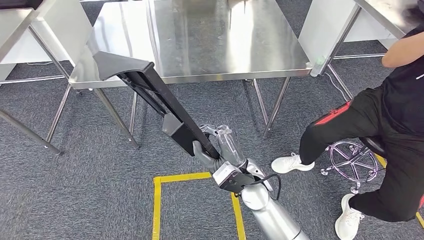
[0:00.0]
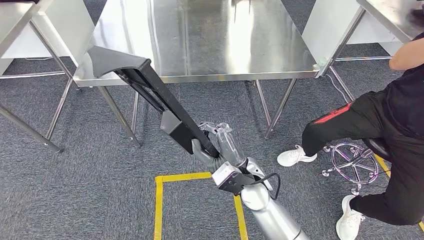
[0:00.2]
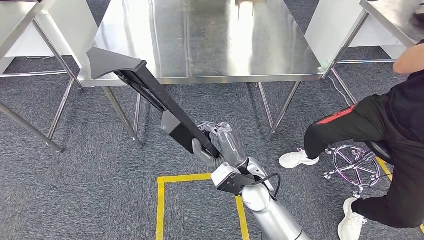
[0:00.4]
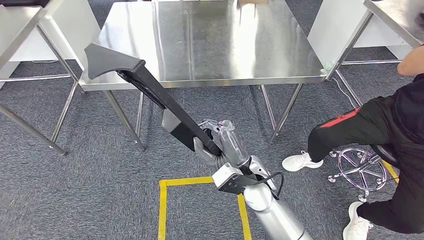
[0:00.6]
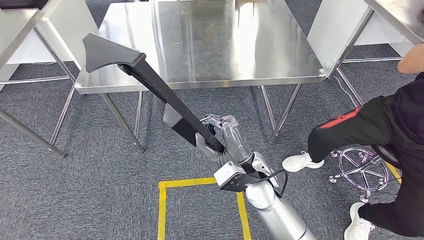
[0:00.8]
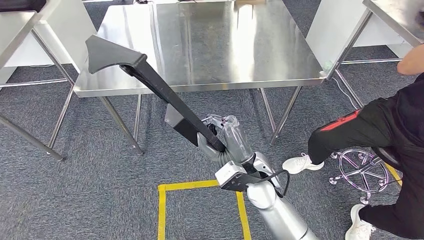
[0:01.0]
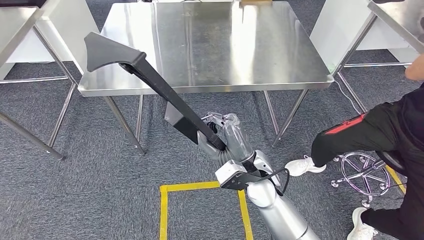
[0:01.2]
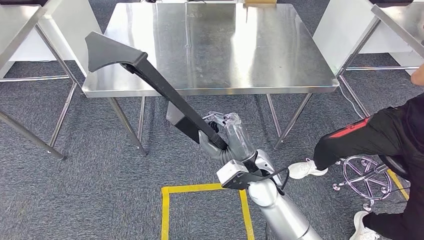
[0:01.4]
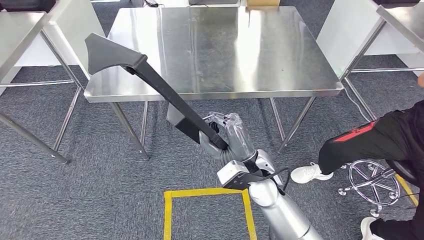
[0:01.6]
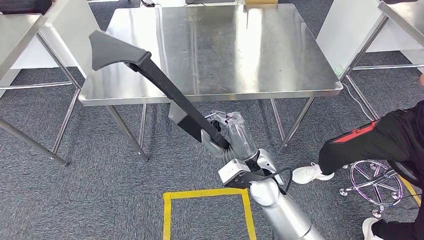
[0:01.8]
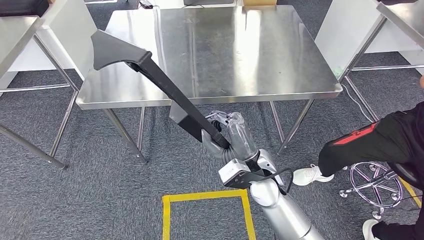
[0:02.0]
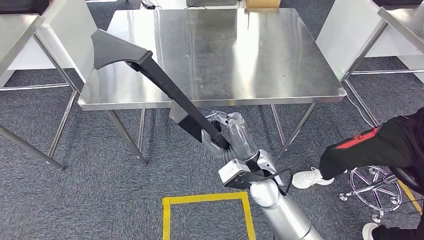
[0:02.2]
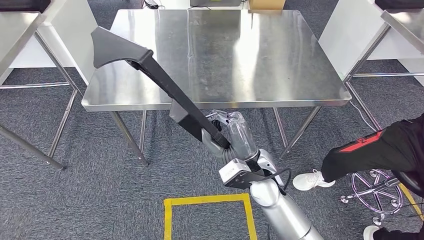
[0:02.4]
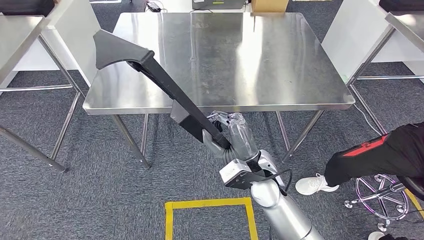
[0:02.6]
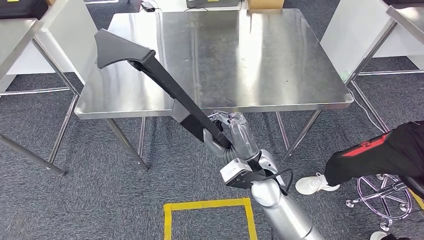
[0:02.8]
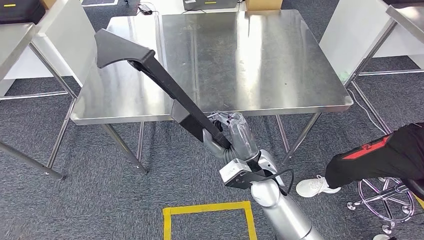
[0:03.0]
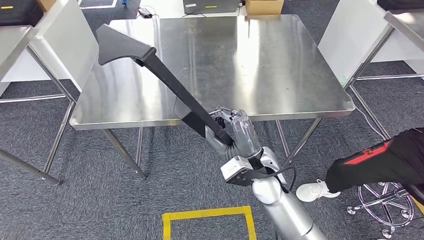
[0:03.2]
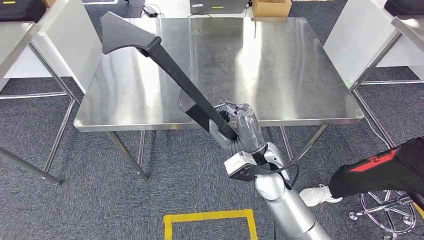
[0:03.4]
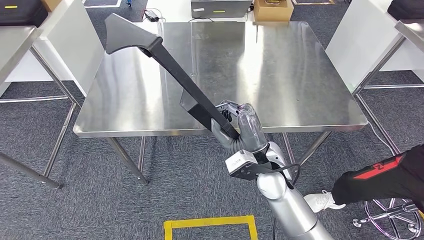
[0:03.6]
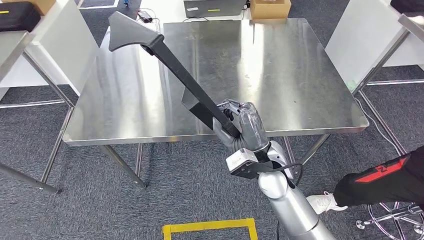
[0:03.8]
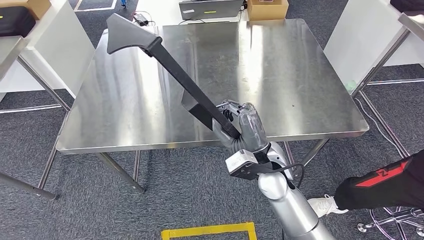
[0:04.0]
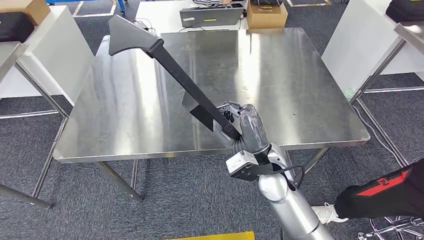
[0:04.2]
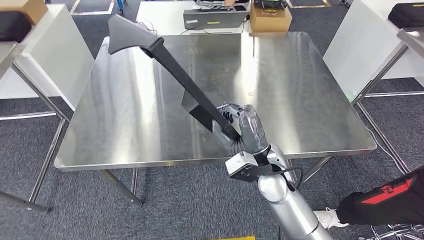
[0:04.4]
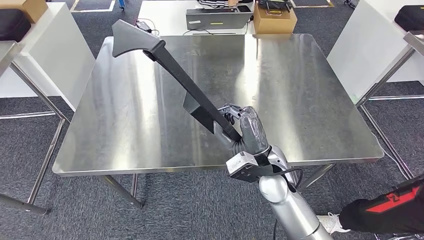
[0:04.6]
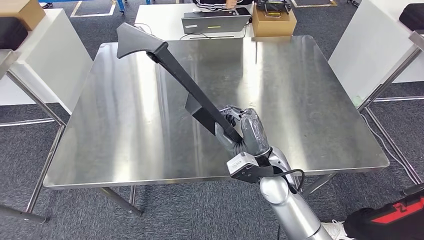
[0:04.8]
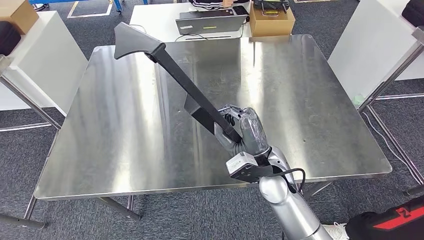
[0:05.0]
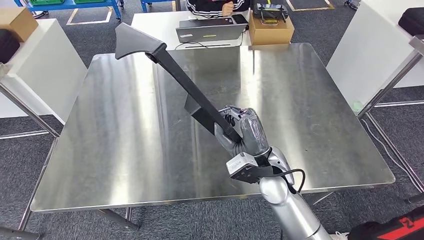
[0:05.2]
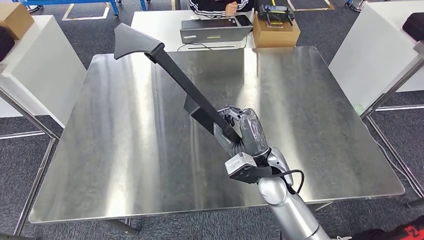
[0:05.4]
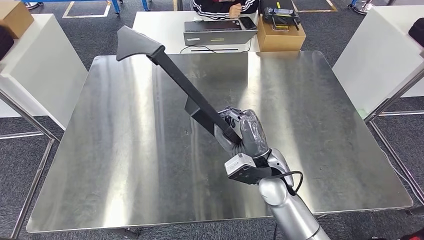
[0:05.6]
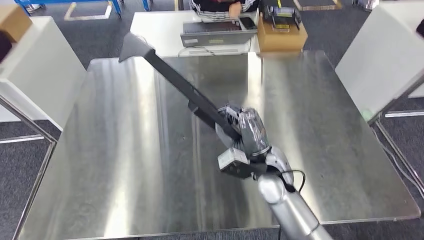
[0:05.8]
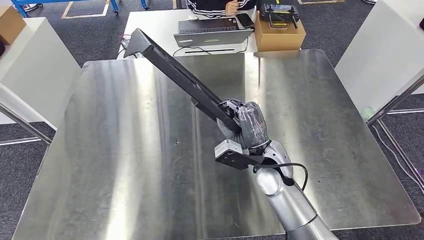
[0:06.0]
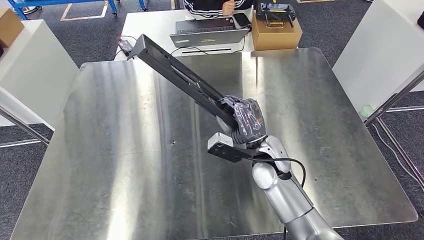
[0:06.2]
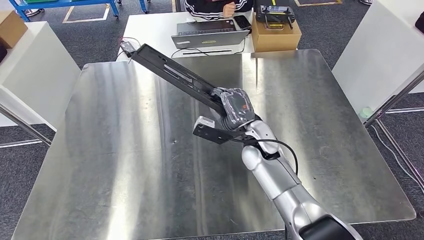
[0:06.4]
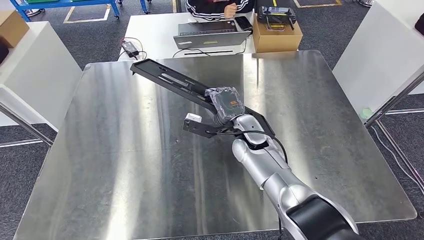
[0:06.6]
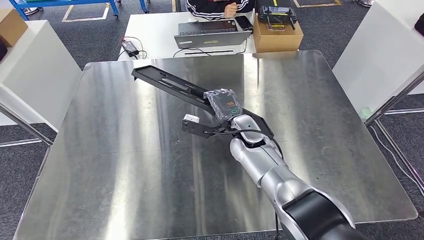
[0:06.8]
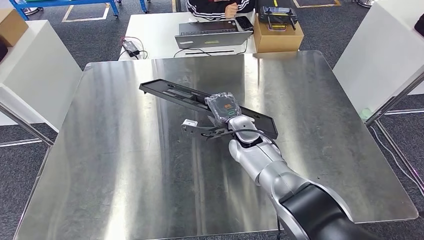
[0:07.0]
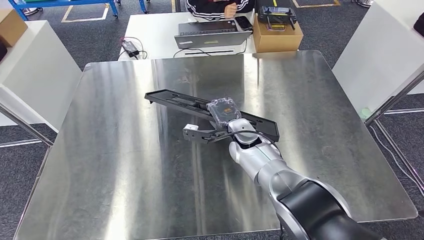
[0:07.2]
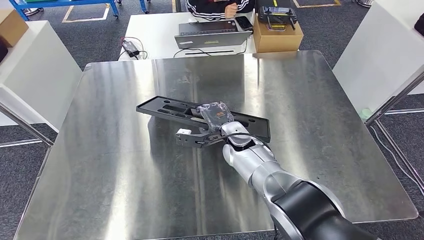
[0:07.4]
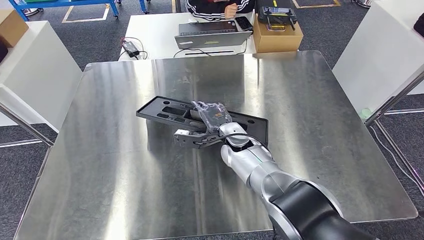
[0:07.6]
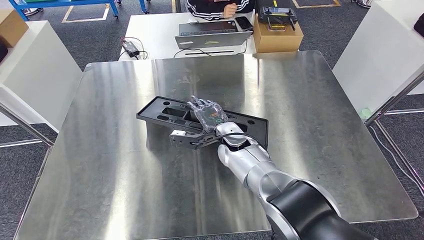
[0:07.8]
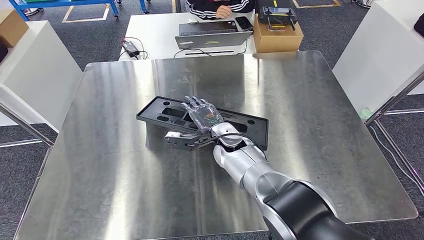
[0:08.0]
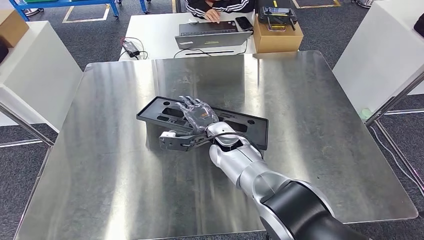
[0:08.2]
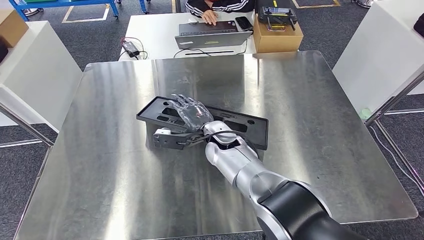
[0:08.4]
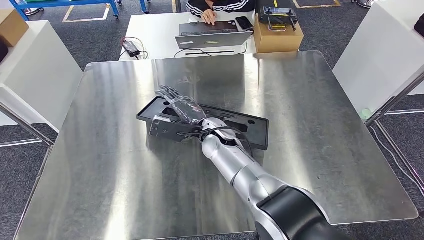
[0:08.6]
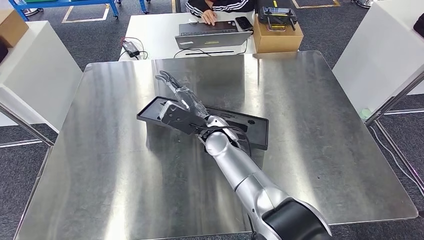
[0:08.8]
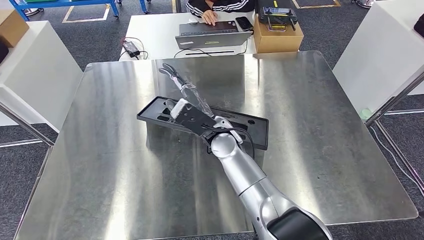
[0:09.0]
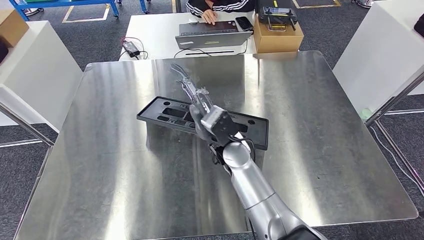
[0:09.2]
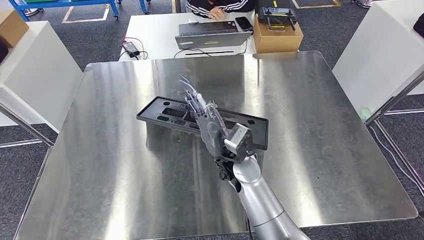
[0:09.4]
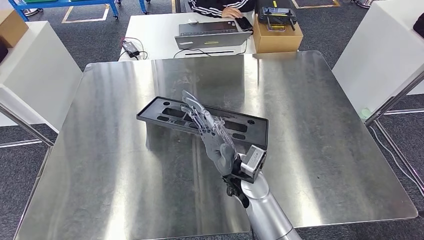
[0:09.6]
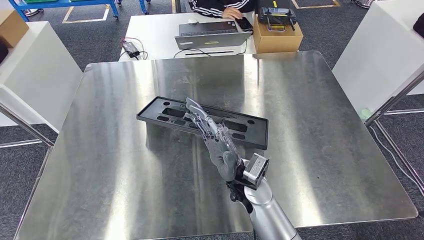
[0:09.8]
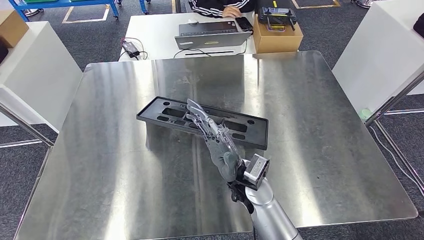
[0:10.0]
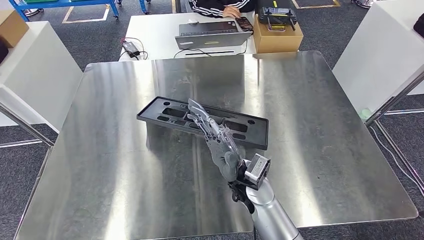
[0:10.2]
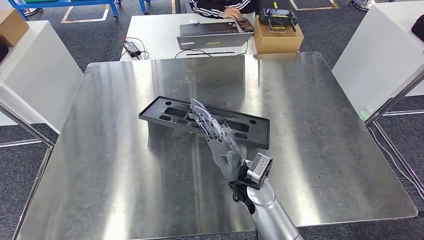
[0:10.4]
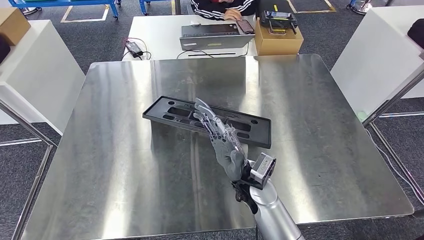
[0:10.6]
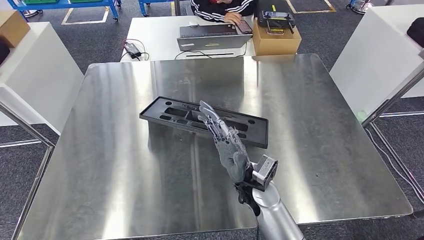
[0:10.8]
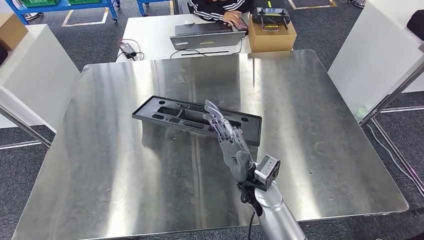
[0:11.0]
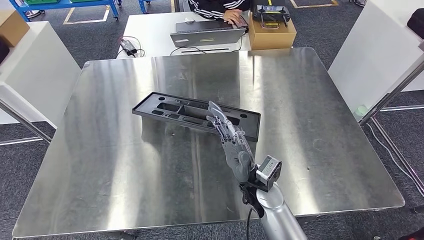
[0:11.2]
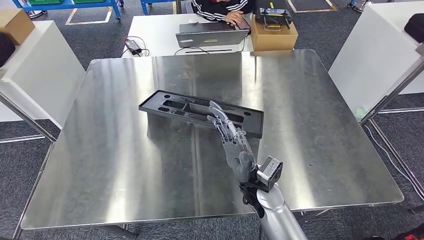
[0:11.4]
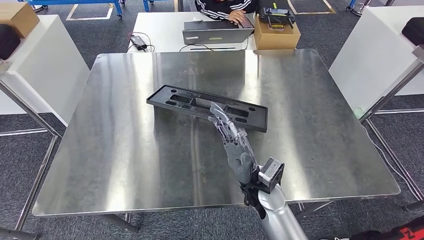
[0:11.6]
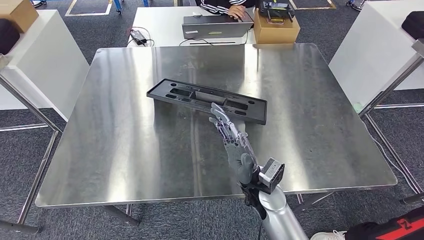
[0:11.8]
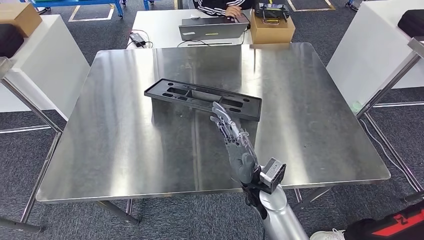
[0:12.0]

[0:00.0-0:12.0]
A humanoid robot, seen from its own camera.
0:07.6 to 0:09.0: The right hand moves upward, some 5 cm.
0:09.0 to 0:10.4: The right hand moves backward, about 10 cm.

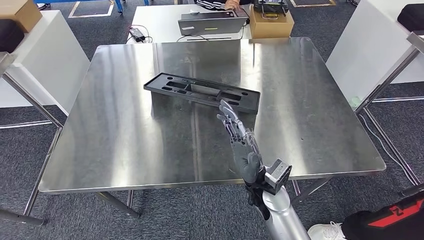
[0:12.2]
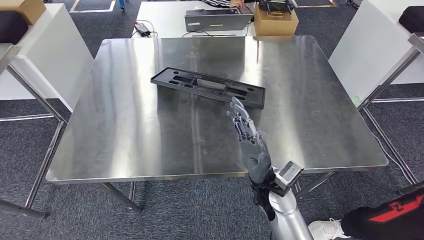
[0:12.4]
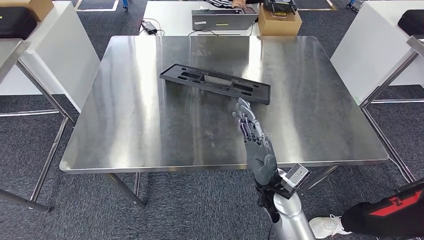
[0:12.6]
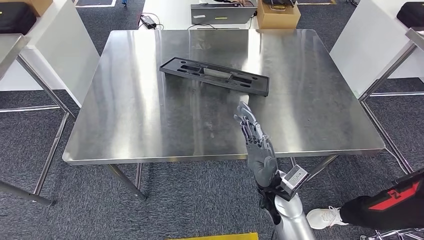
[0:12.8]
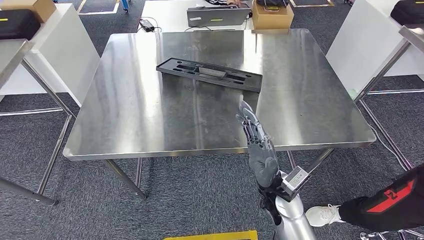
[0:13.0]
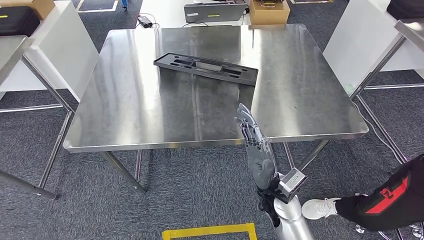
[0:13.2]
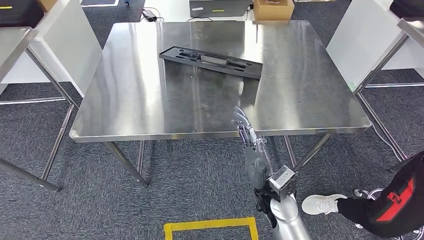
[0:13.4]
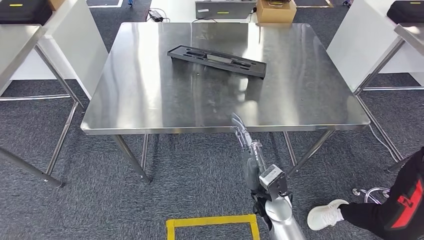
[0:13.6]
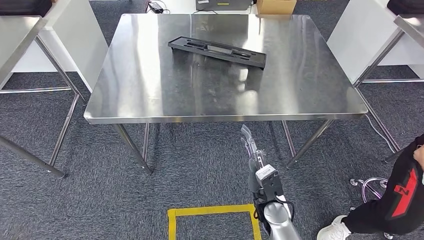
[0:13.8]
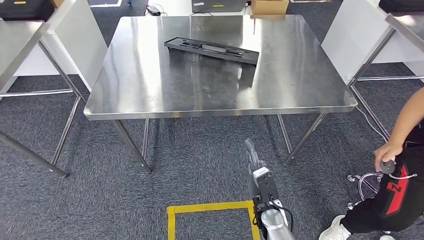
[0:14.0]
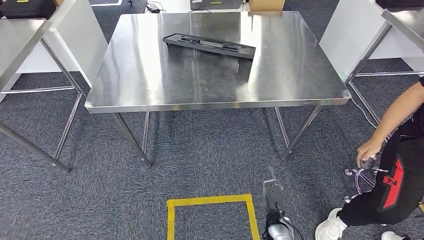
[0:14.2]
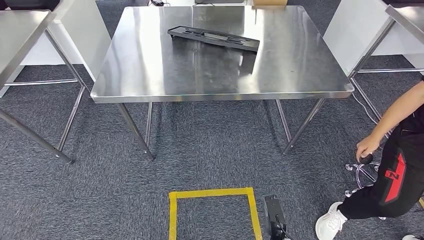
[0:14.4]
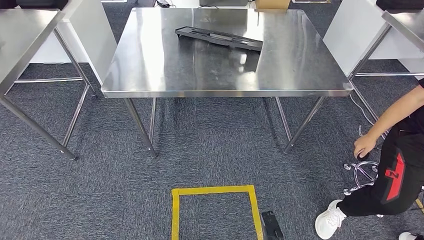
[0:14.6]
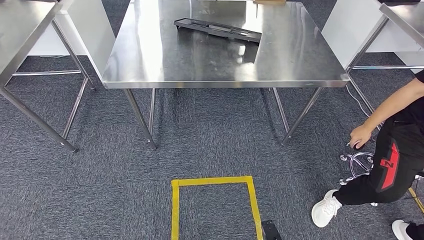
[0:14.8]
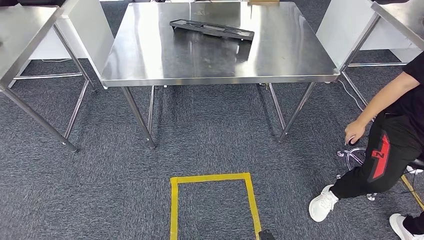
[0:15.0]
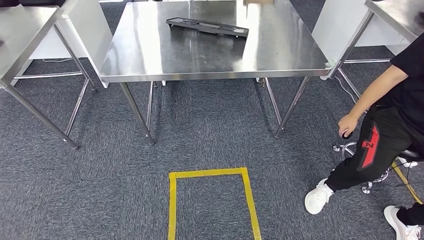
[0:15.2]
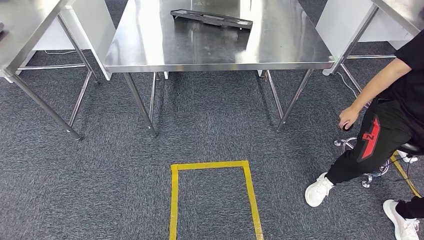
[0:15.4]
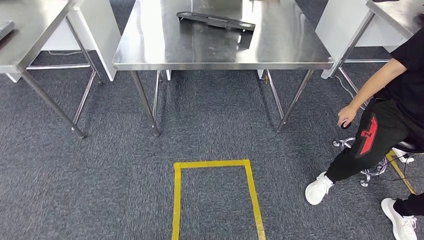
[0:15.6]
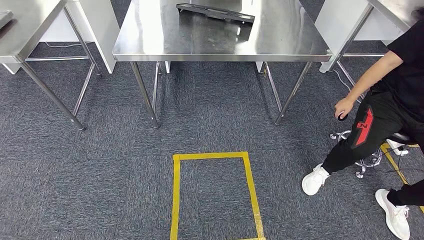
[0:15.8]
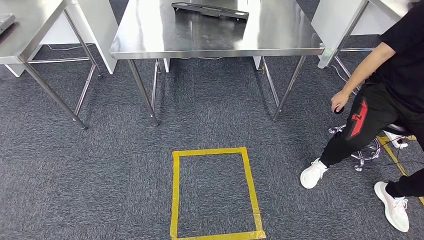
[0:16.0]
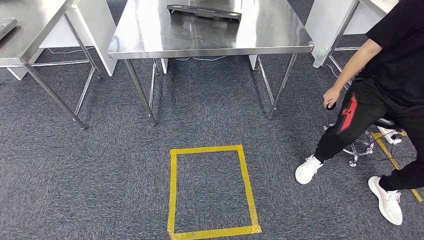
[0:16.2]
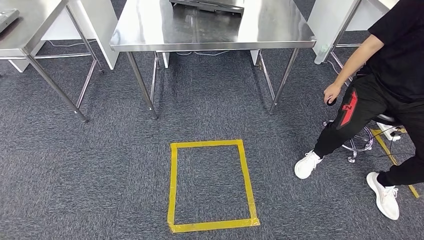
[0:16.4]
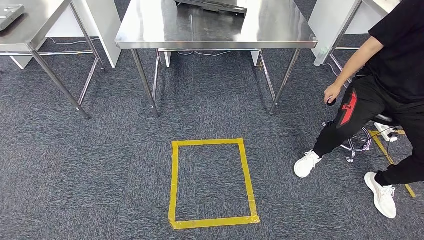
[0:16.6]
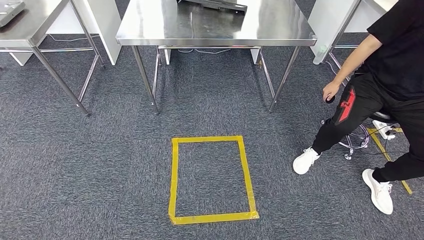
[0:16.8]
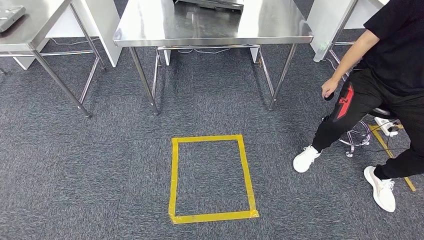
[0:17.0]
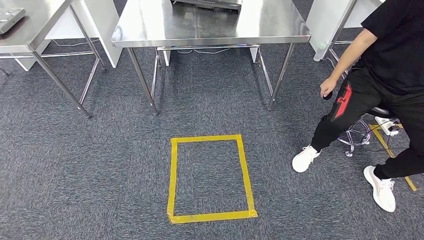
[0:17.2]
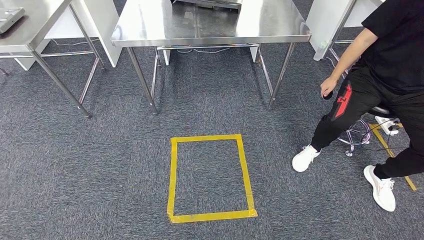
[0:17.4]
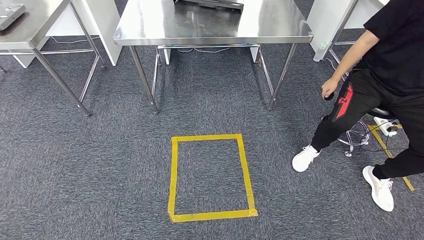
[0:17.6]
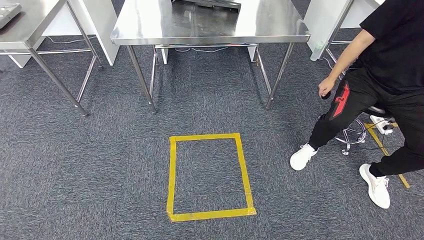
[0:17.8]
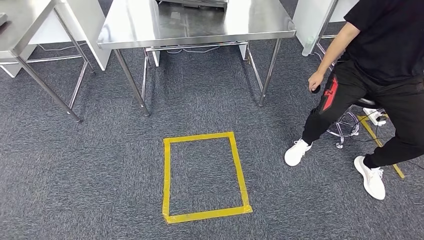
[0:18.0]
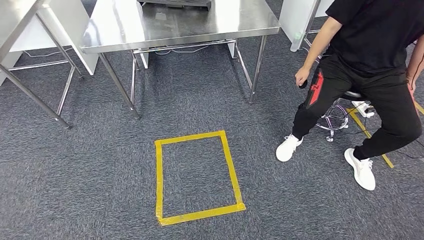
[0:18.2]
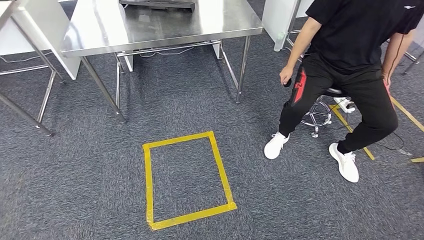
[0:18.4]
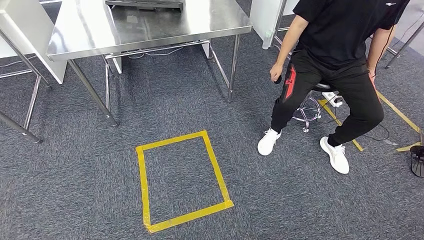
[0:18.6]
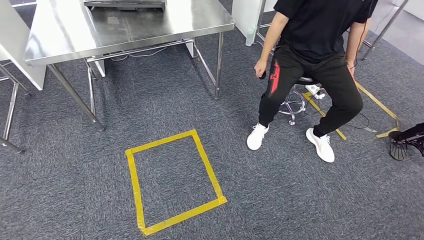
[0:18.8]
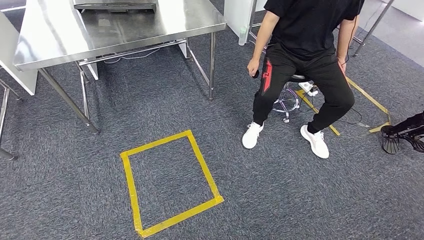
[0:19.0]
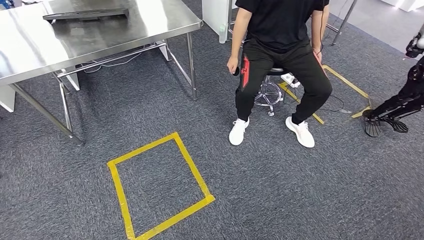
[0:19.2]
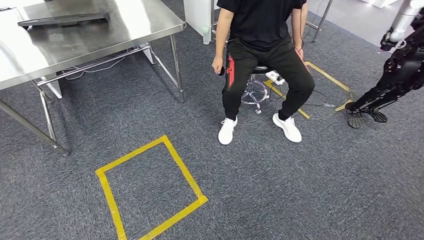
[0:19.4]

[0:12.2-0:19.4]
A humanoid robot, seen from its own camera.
Step, 0:12.2 to 0:14.2: Insert the large material into the corresponding slot on the workbench.
